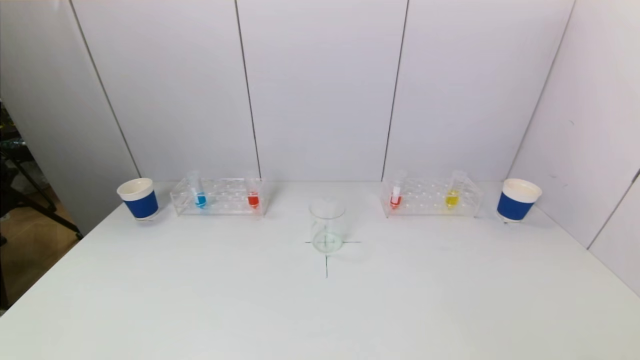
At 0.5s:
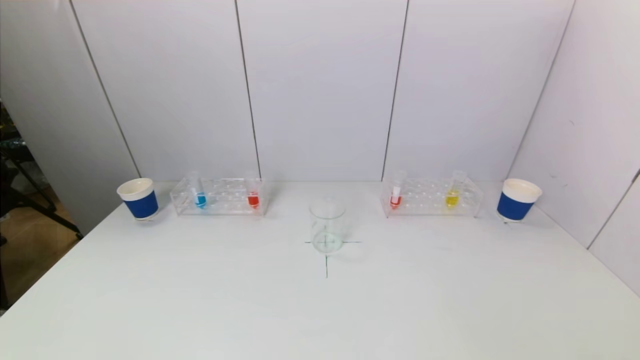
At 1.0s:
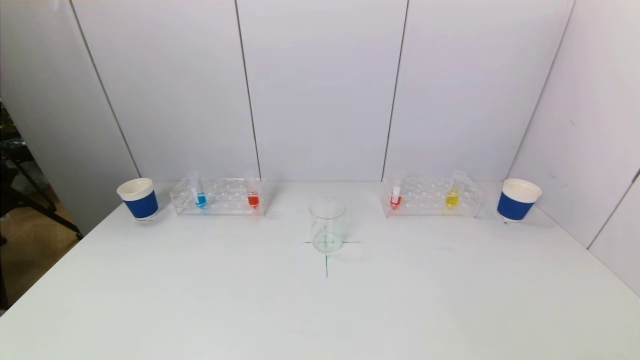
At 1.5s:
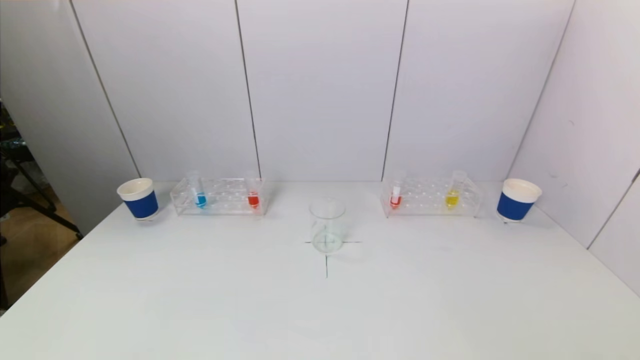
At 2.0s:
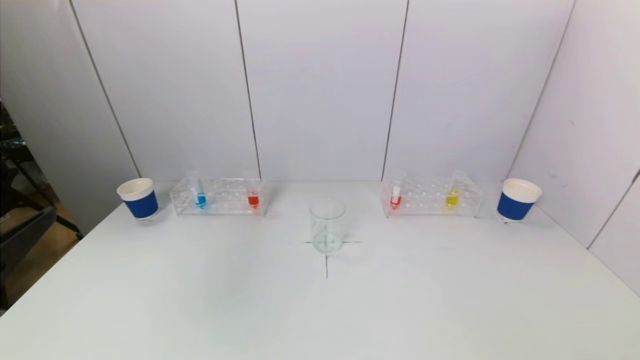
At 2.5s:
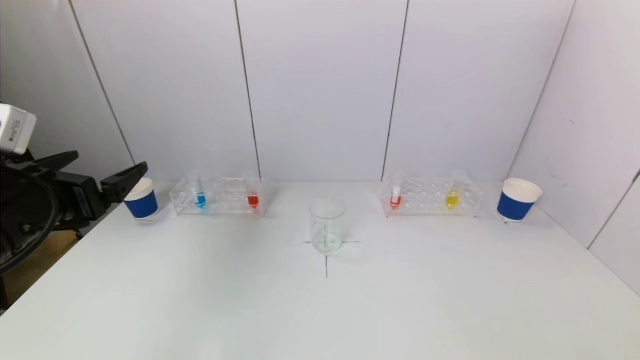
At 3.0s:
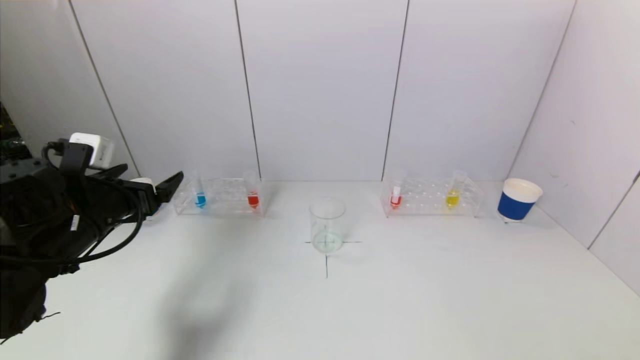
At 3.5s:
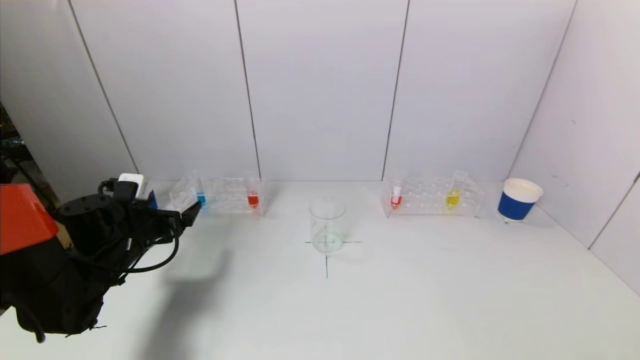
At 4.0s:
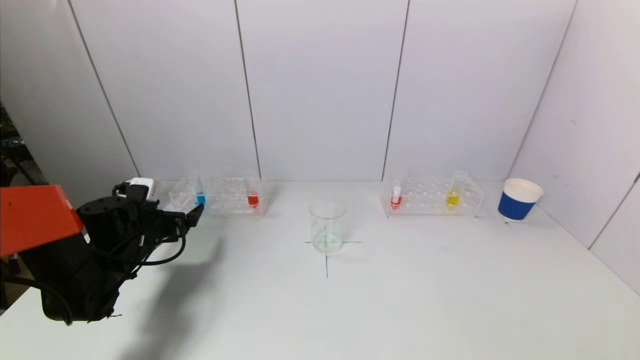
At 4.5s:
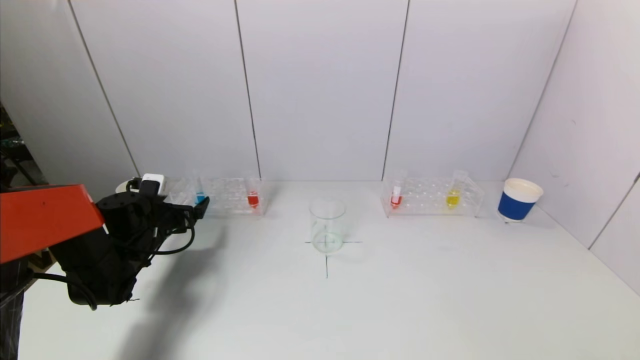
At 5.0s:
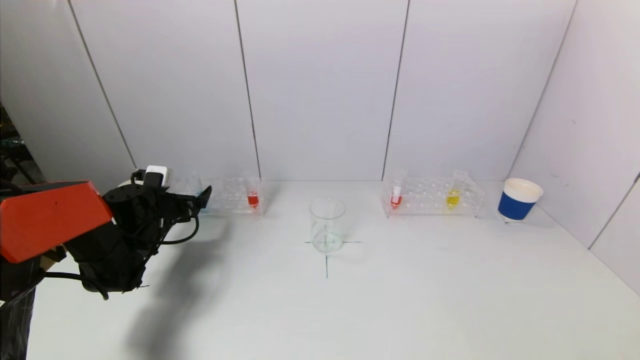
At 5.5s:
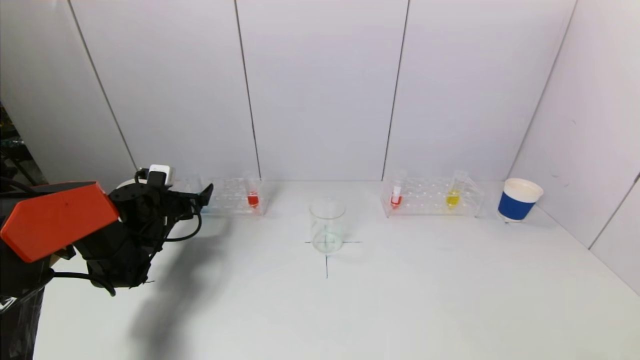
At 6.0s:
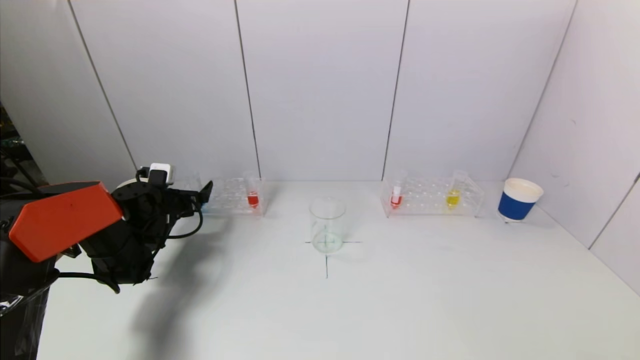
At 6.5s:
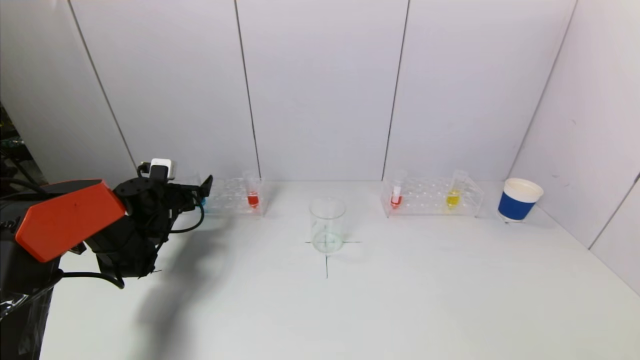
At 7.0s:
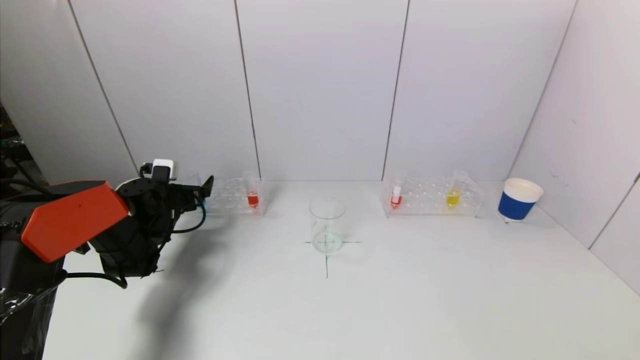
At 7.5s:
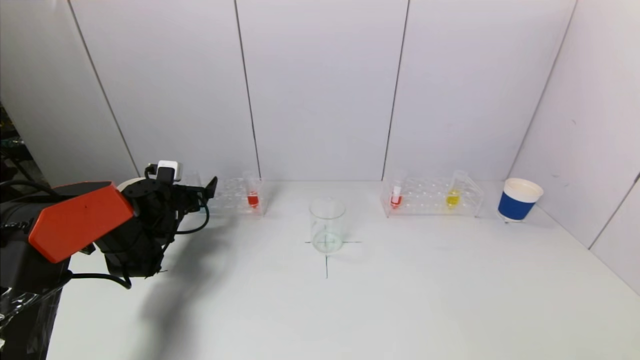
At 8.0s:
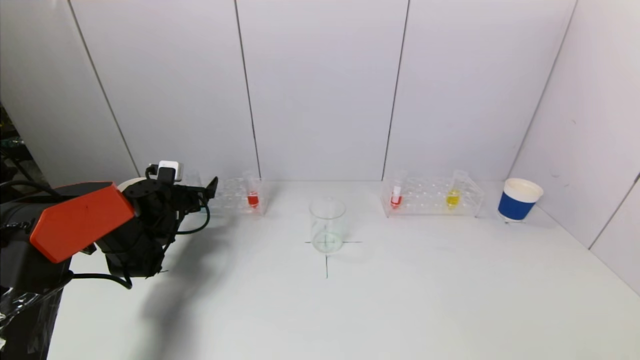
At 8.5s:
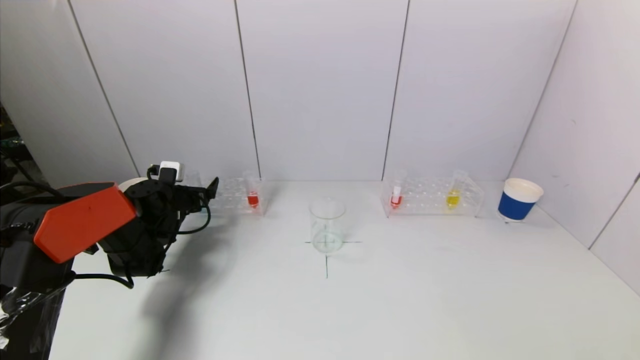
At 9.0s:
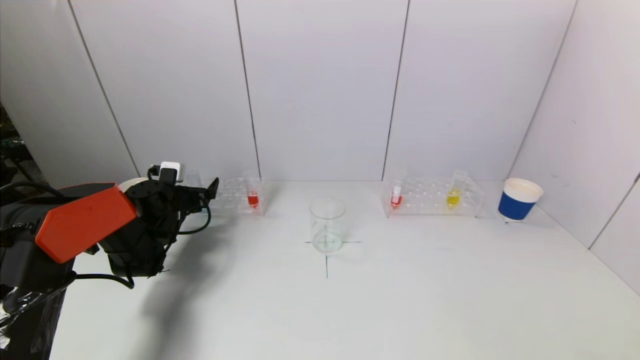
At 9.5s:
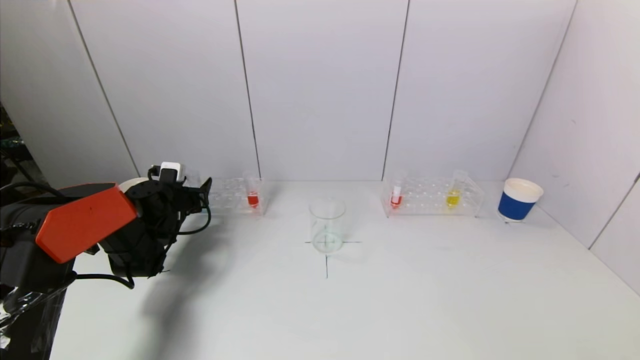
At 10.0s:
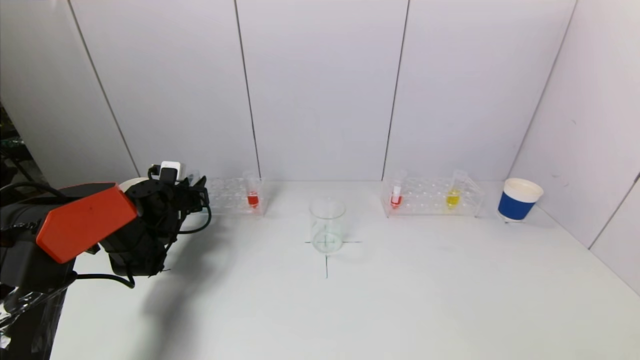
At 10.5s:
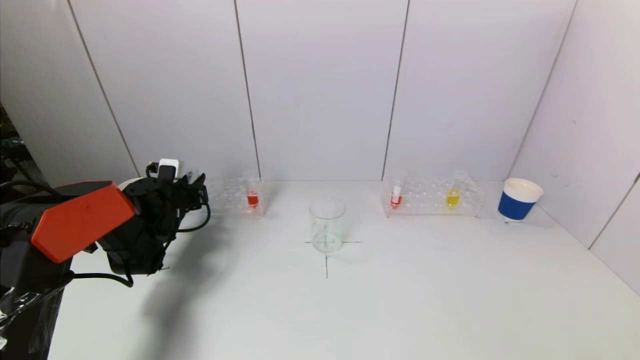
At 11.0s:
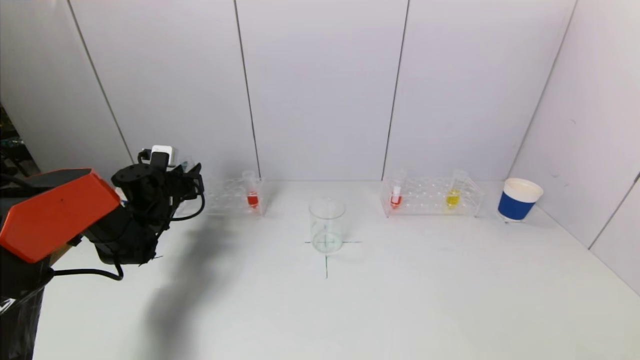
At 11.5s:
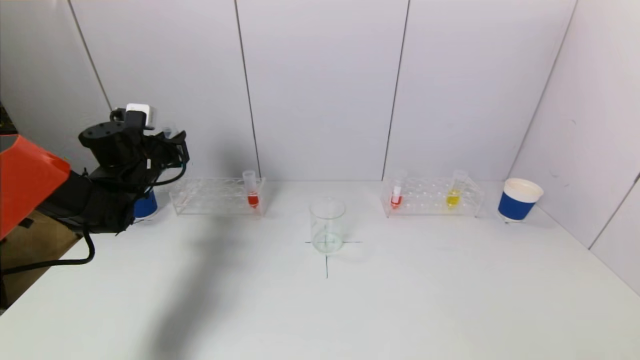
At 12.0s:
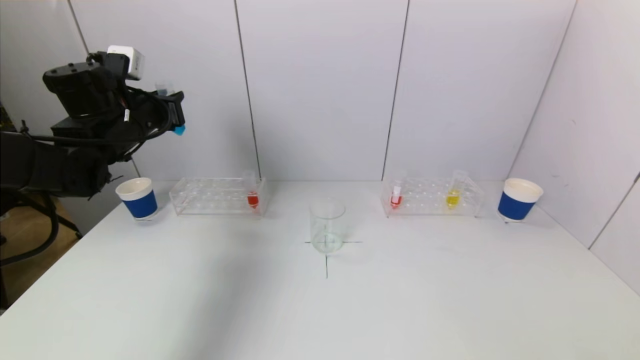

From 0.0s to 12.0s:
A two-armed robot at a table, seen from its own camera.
Task of the whole recording: pick up a test tube with pigment on left test tube rack and a test tube with pigment on right test tube rack by grippers and pour them into the beaker.
Step, from 0.0s to 9.5s: Grasp the blue reagent with the left gripper.
From 0.0s to 2.0s: The left gripper heads upward and forward, covering about 20 cm.
From 2.0s to 4.0s: The left gripper is displaced forward and downward by some 30 cm.
From 4.0s to 6.0s: The left gripper moves forward, approximately 10 cm.
From 6.0s to 8.0s: The grippers make only small movements.
From 8.0s to 10.0s: The left gripper closes up.
From 10.0s to 12.0s: The left gripper goes about 20 cm upward.

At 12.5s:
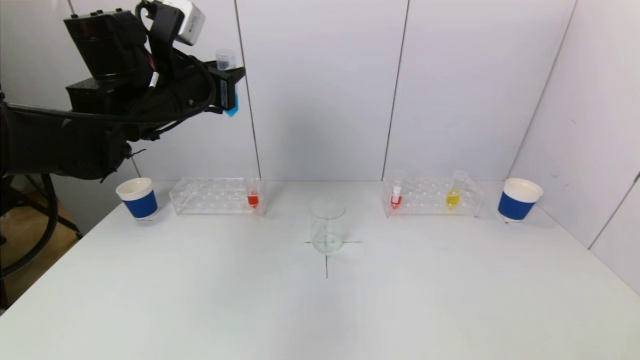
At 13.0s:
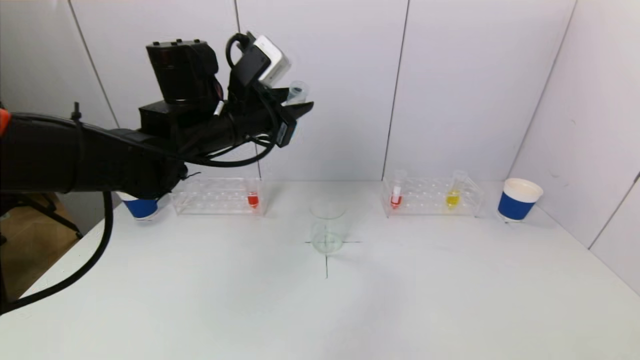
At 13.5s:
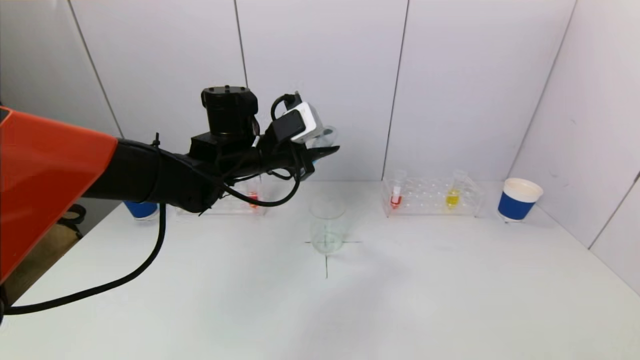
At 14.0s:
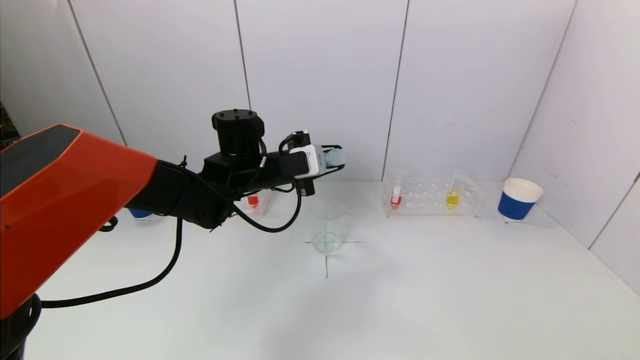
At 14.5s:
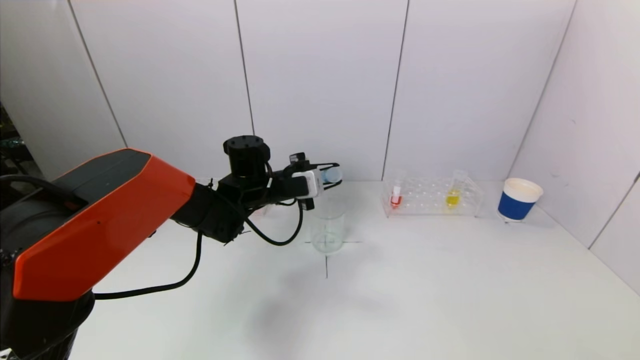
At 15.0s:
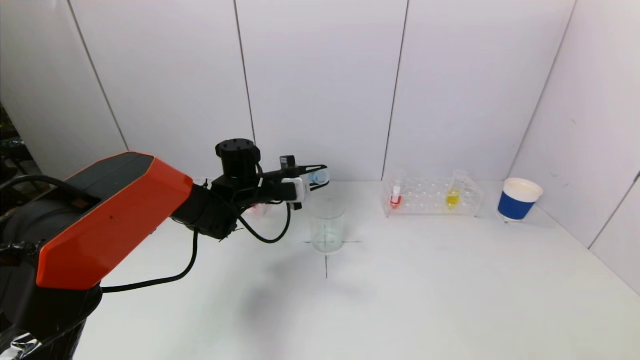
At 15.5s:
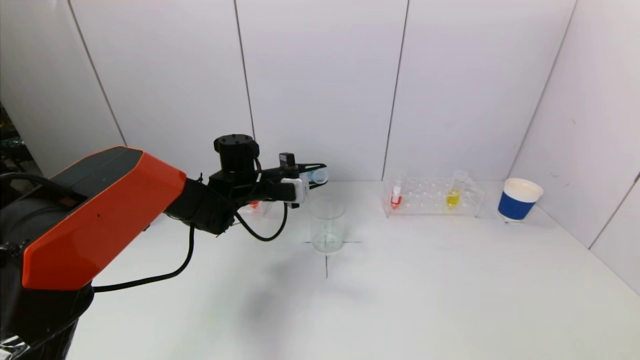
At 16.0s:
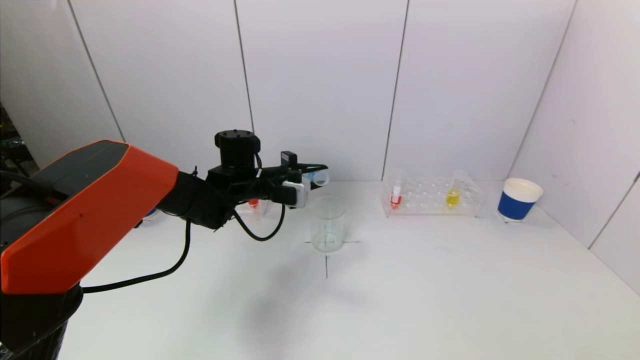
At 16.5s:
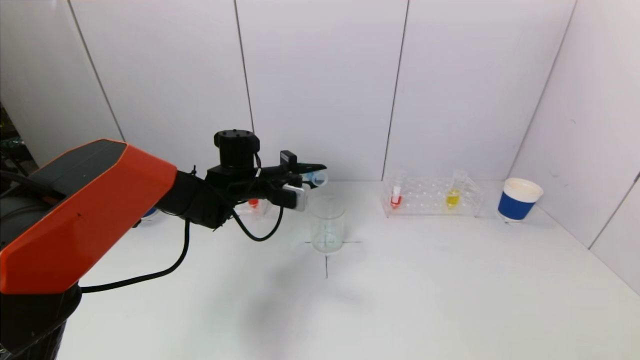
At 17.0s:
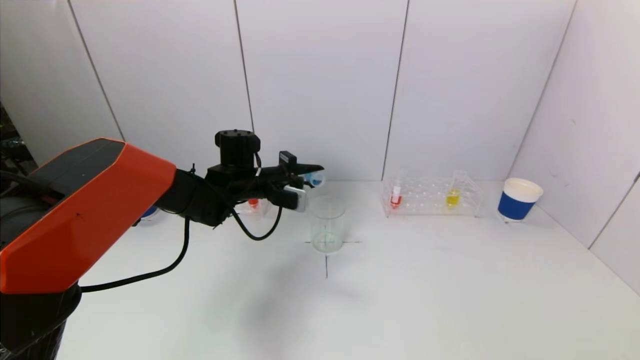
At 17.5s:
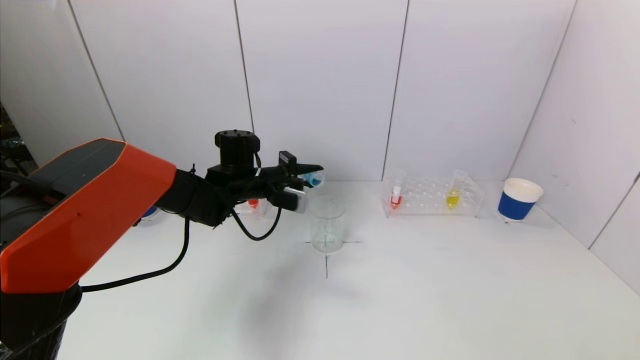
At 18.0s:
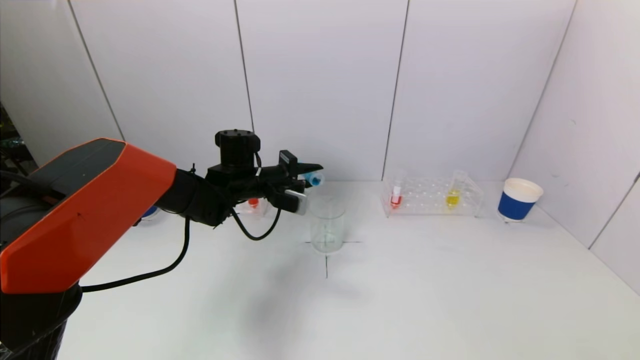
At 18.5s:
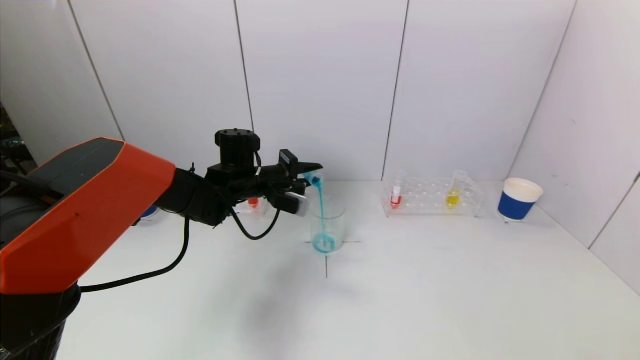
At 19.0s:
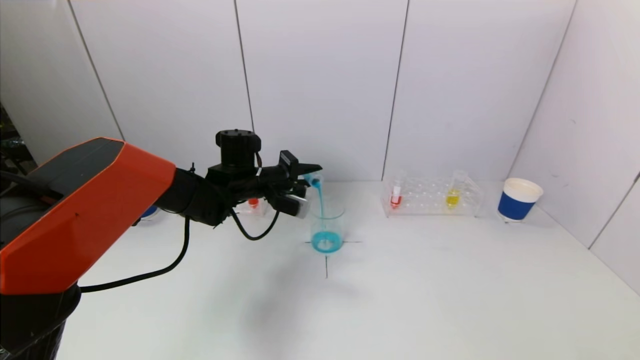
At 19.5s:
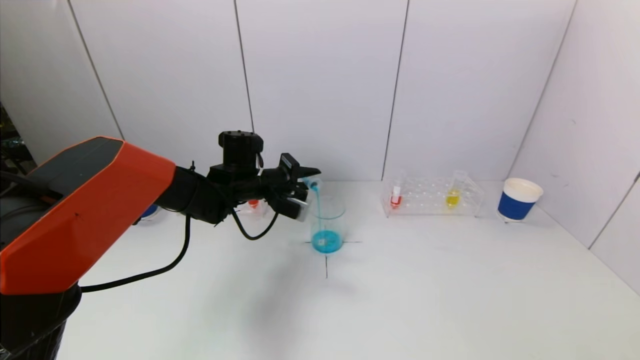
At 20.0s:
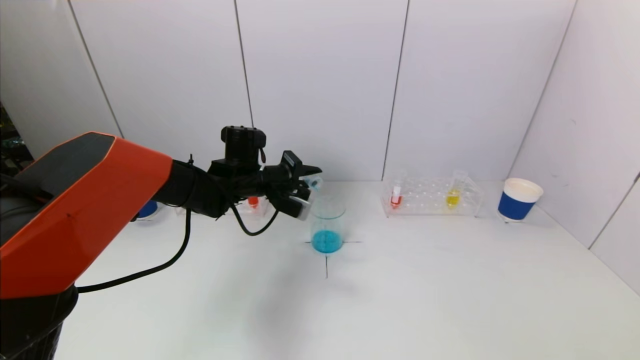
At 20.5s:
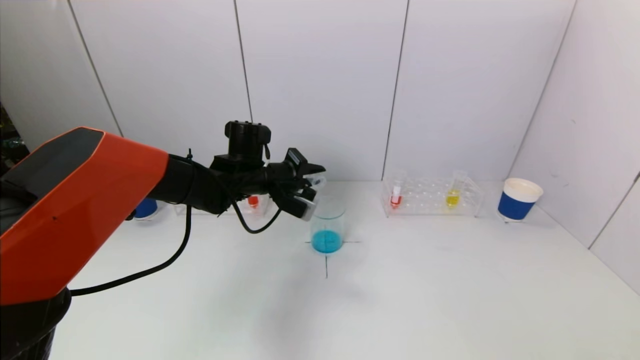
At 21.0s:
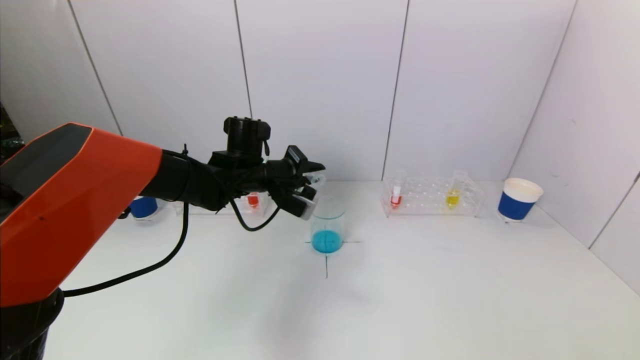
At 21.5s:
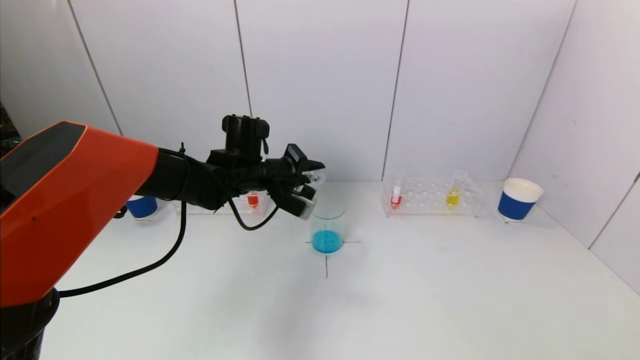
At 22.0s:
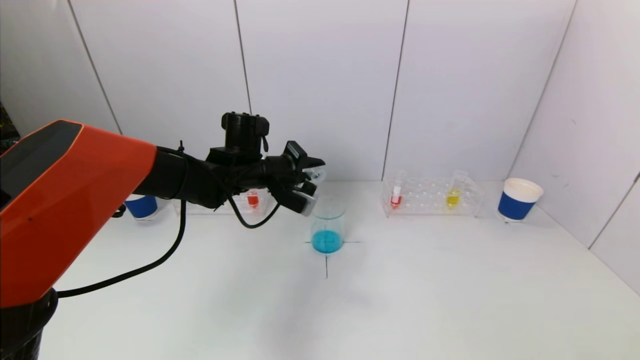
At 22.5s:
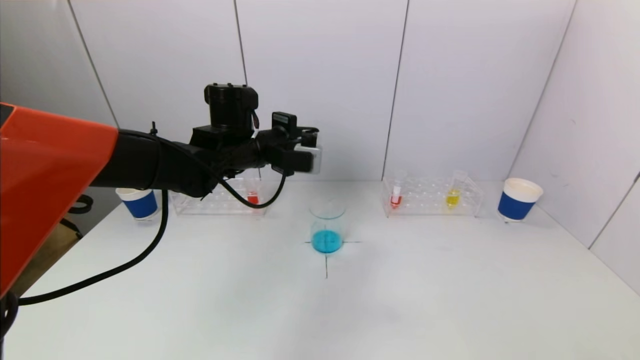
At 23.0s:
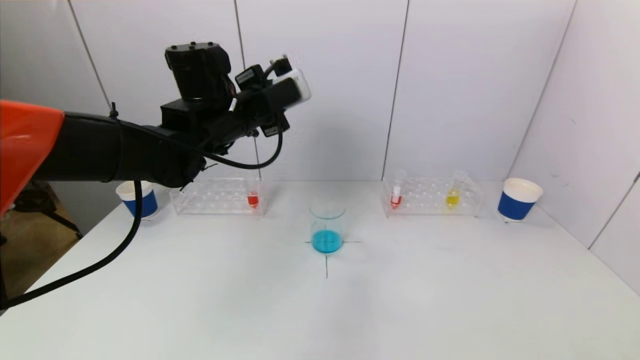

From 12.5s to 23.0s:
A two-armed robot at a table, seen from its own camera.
Task of the whole recording: pick up a test tube with pigment on left test tube rack and a test tube with pigment on right test tube rack by grippers and pour them into the beaker.
Step, from 12.5s to 21.0s: Pour the blue reagent into the graduated cylinder with the left gripper.
From 12.5s to 14.5s: The left gripper shifts roughly 20 cm downward and to the right.
From 16.5s to 19.0s: There are only small adjustments of the grippers.
From 19.0s to 21.0s: The grippers make only small movements.
From 21.0s to 23.0s: The left gripper heads upward, covering some 10 cm.
